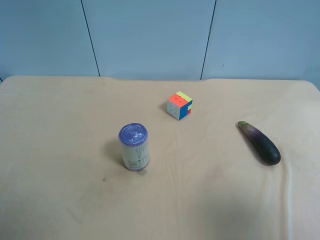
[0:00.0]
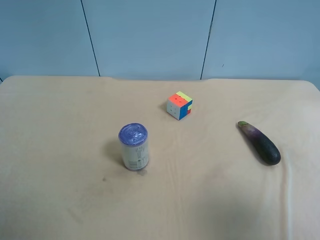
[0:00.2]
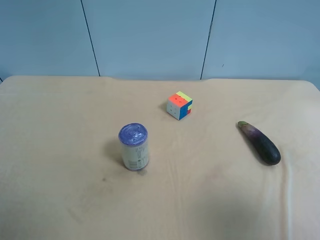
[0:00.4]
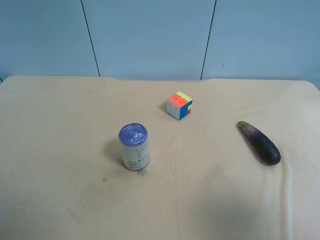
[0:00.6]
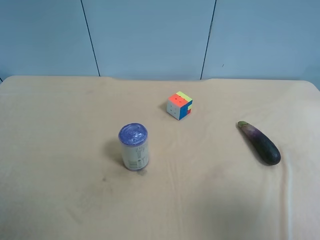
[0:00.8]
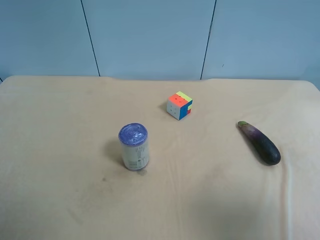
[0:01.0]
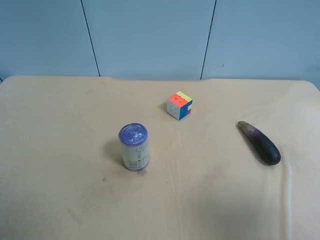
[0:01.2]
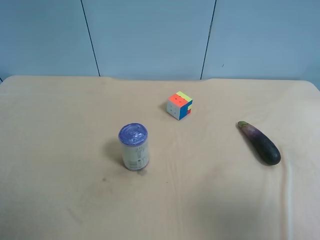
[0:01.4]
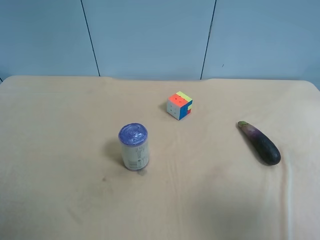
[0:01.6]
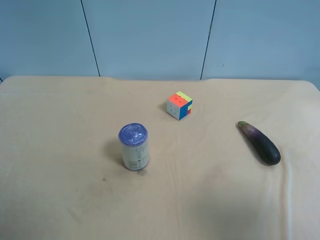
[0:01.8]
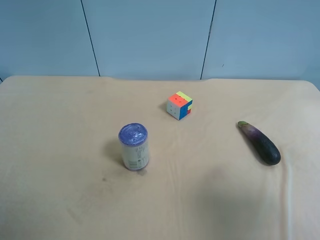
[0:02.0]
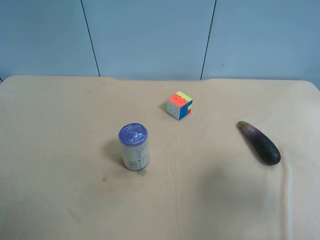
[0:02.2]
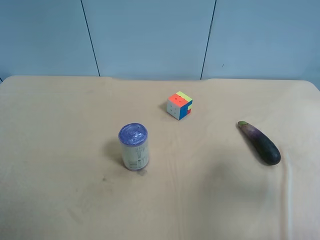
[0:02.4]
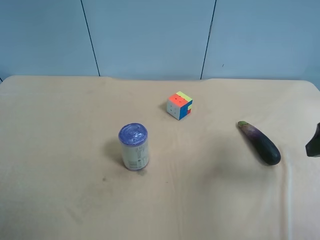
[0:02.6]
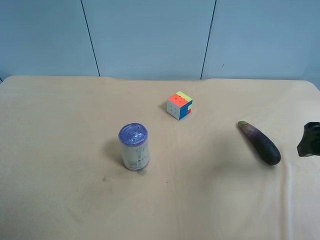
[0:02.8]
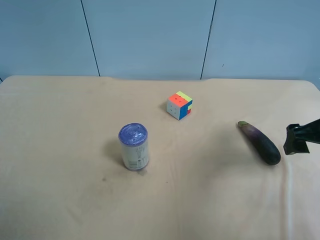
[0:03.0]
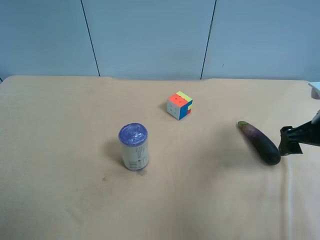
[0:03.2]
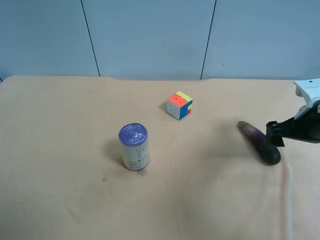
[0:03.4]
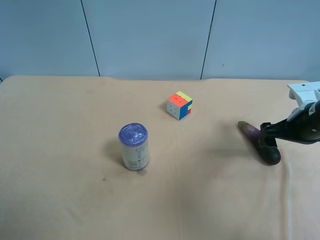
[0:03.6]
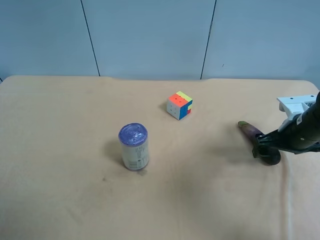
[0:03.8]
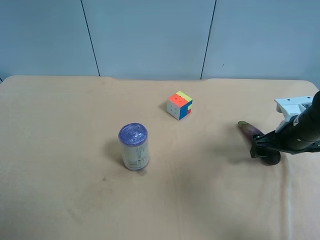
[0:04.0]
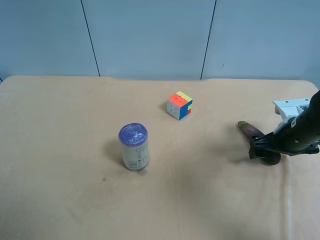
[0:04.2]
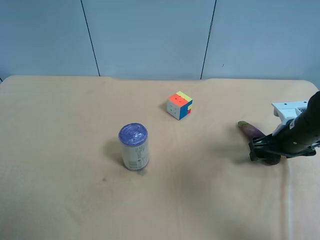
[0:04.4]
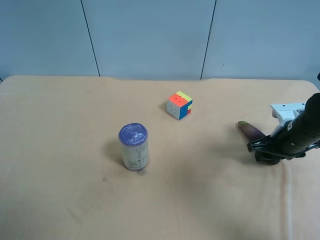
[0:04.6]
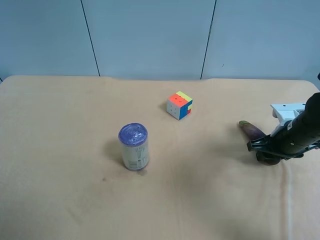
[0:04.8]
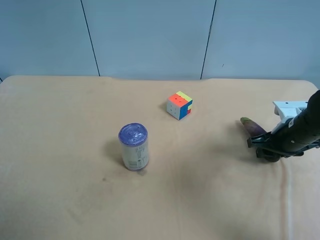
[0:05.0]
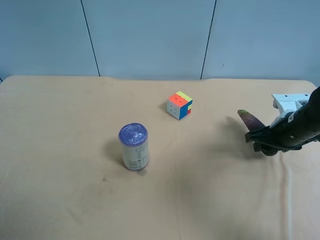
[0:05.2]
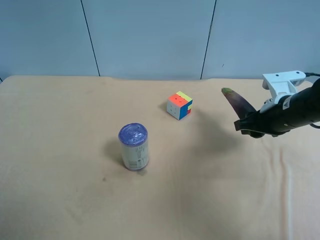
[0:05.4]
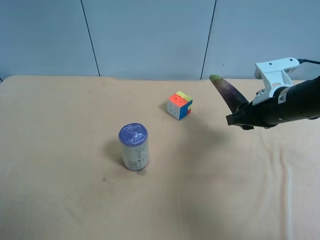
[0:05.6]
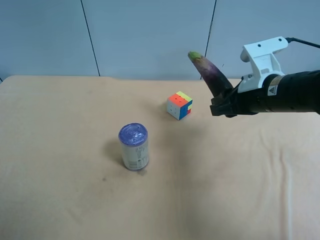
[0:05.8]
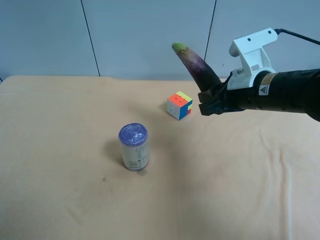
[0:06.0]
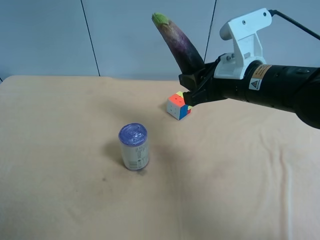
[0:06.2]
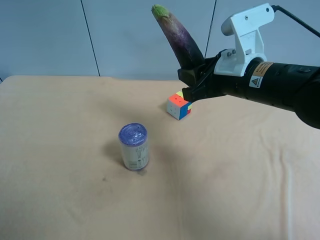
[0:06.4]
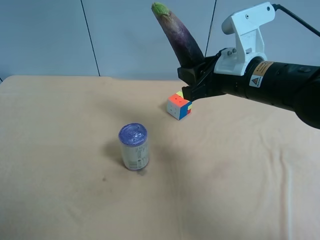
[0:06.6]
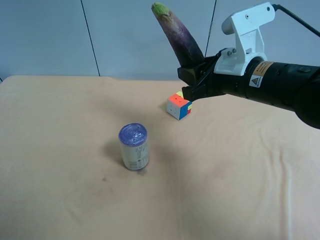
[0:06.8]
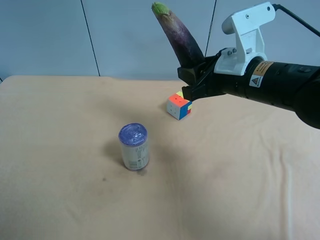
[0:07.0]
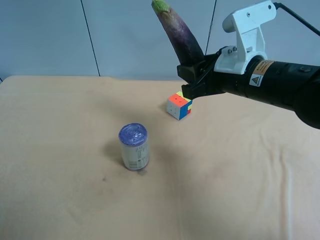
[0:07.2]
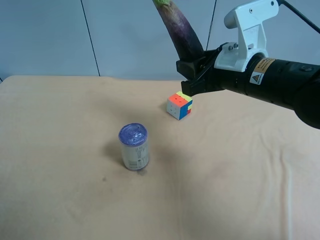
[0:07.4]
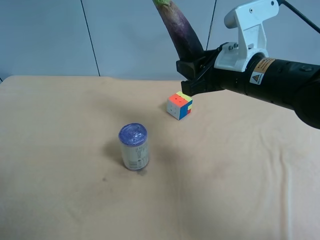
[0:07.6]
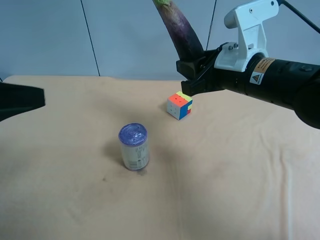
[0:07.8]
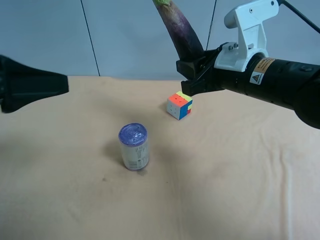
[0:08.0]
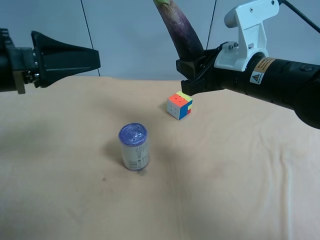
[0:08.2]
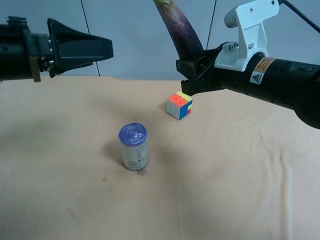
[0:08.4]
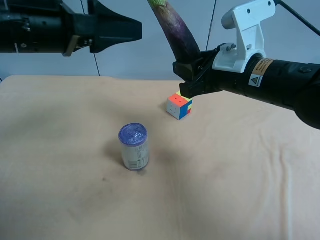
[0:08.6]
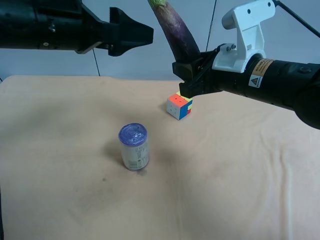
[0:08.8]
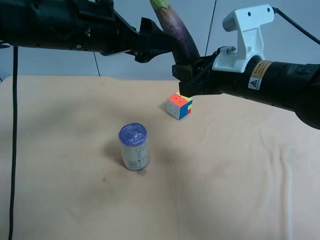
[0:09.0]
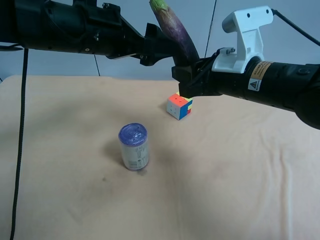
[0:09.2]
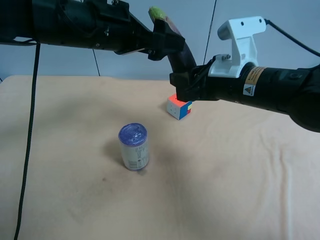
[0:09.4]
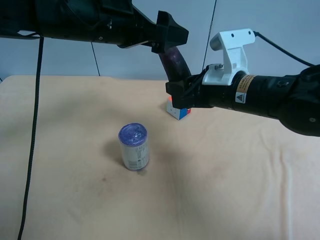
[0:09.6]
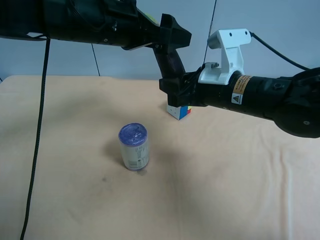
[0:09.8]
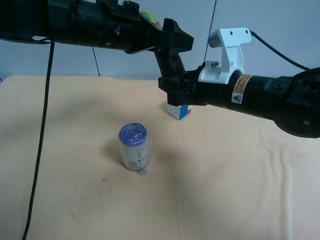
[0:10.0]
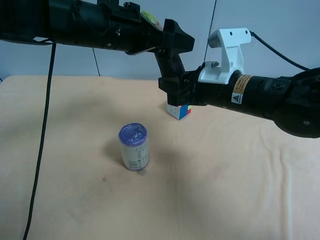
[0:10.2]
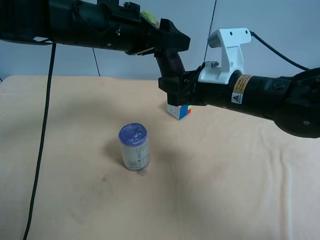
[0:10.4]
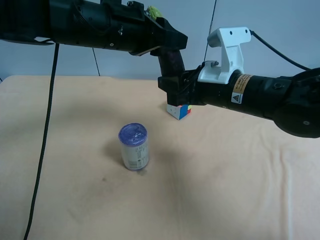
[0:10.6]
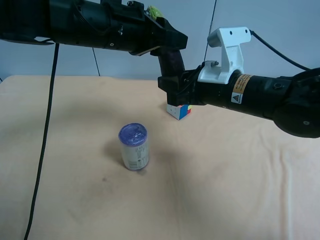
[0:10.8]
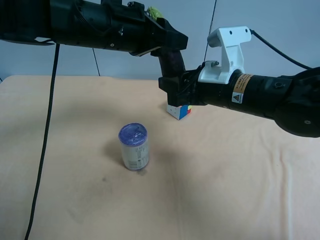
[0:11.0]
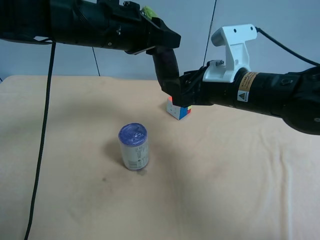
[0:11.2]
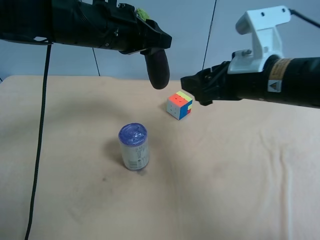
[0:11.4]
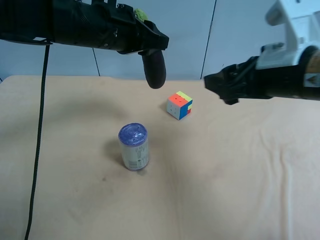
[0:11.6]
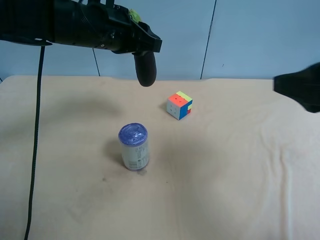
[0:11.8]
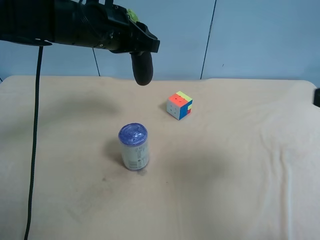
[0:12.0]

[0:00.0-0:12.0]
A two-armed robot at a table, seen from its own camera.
Task of the whole recording: use the right gripper to pick up the item and transfer it from the right gripper to the left gripper.
0:01.6 to 0:03.0: The right gripper shifts about 25 cm forward and downward.
0:03.0 to 0:04.4: The right gripper shifts about 10 cm downward and forward, and closes up.
0:04.4 to 0:06.0: The right gripper travels to the left and upward by about 20 cm, and closes up.
0:06.0 to 0:07.6: The left gripper moves forward, roughly 5 cm.
0:07.6 to 0:09.0: The left gripper is displaced forward and to the right by some 25 cm.
0:09.0 to 0:10.4: The left gripper closes its fingers.
0:10.4 to 0:12.0: The left gripper closes its fingers, while the right gripper heads backward, to the right and upward, covering roughly 25 cm, and opens its fingers.

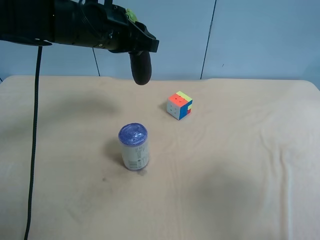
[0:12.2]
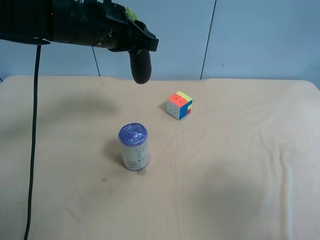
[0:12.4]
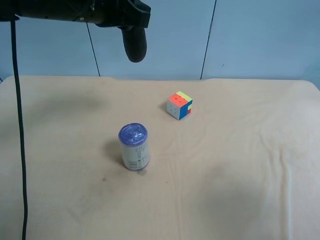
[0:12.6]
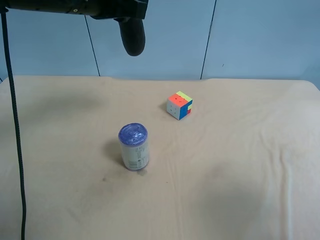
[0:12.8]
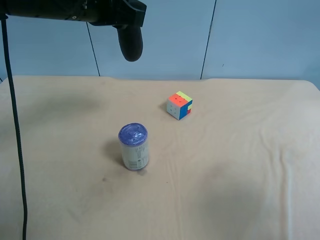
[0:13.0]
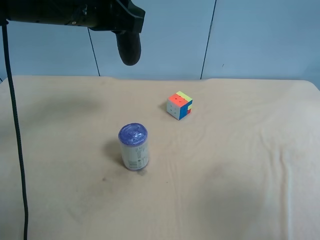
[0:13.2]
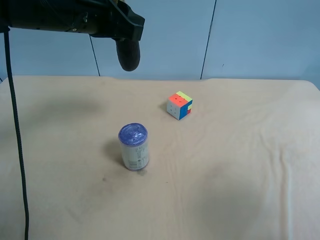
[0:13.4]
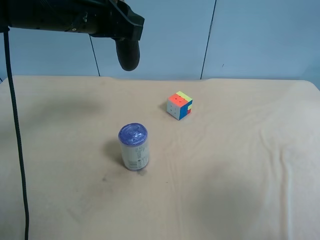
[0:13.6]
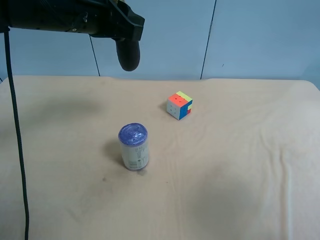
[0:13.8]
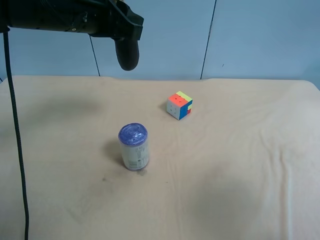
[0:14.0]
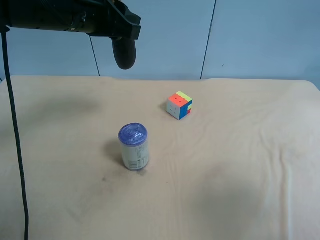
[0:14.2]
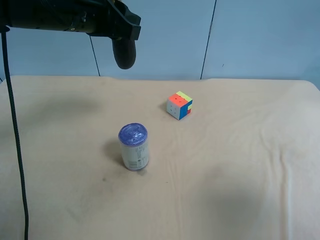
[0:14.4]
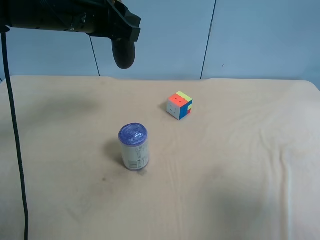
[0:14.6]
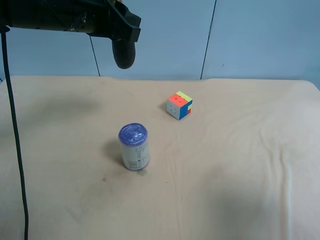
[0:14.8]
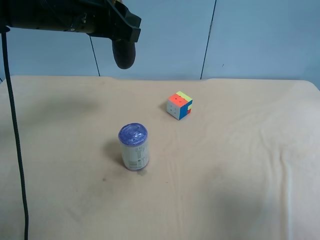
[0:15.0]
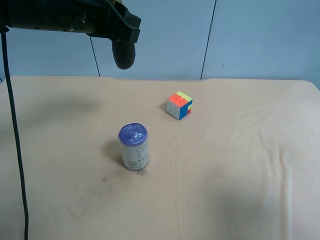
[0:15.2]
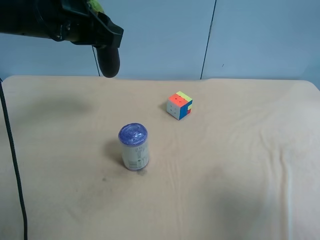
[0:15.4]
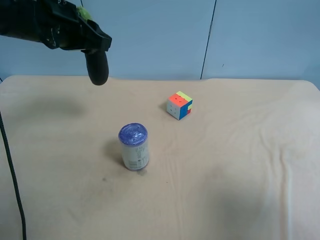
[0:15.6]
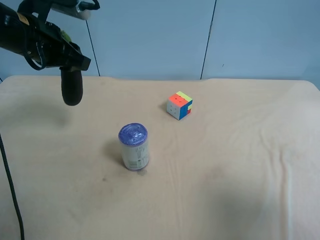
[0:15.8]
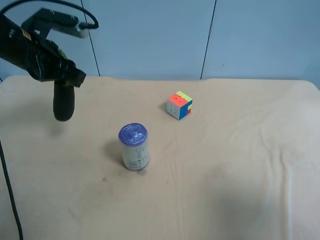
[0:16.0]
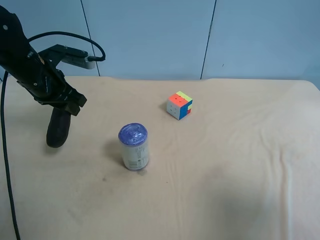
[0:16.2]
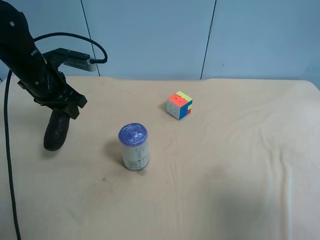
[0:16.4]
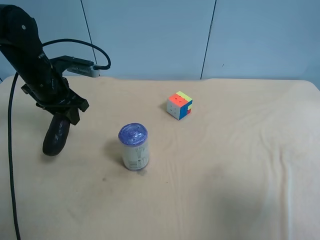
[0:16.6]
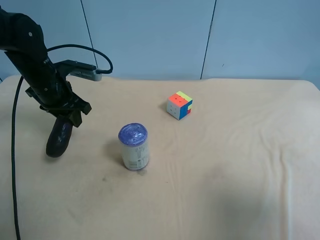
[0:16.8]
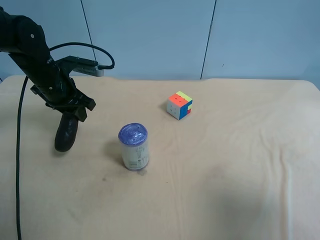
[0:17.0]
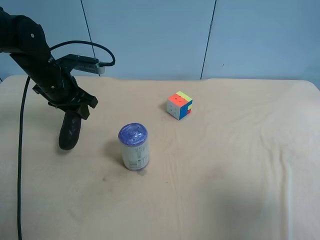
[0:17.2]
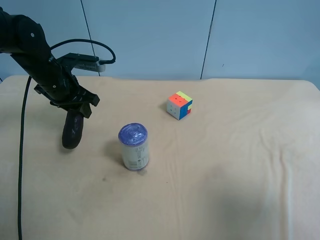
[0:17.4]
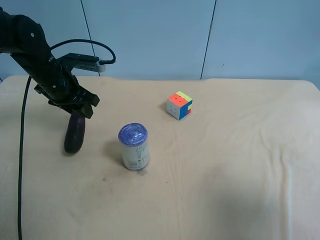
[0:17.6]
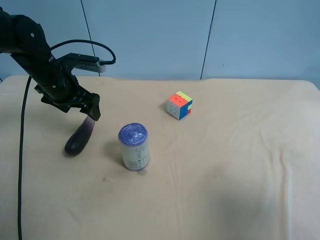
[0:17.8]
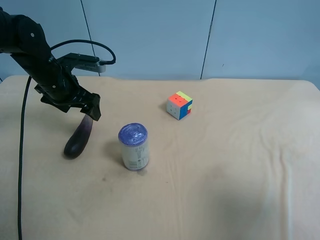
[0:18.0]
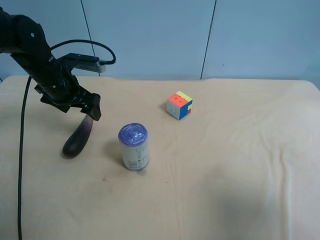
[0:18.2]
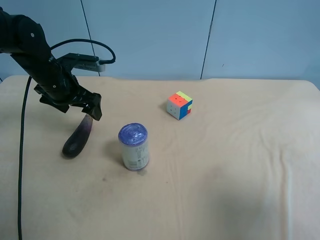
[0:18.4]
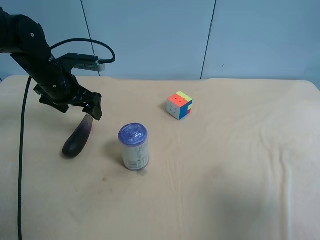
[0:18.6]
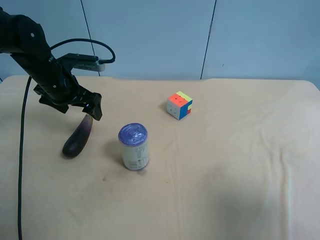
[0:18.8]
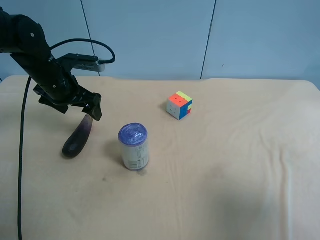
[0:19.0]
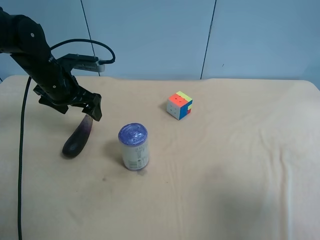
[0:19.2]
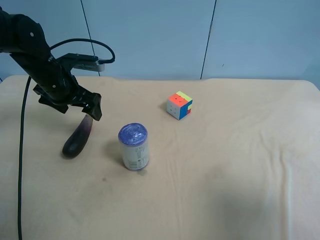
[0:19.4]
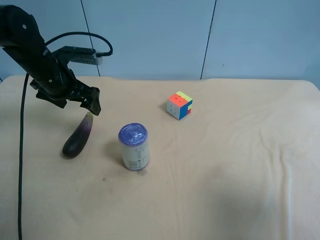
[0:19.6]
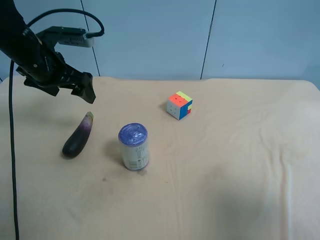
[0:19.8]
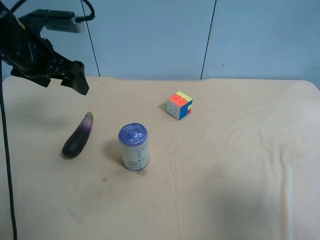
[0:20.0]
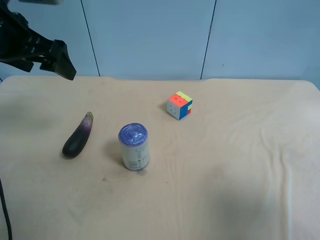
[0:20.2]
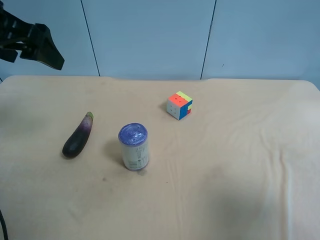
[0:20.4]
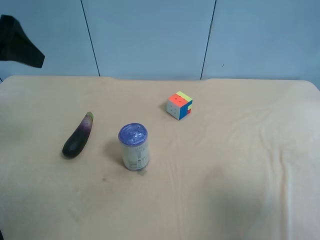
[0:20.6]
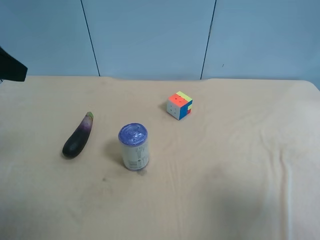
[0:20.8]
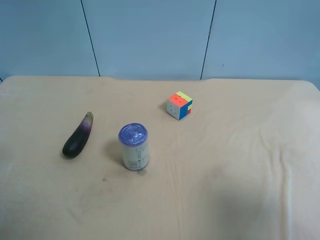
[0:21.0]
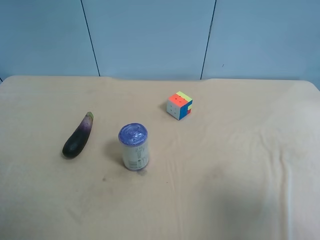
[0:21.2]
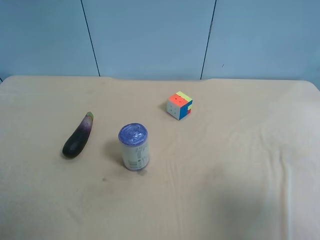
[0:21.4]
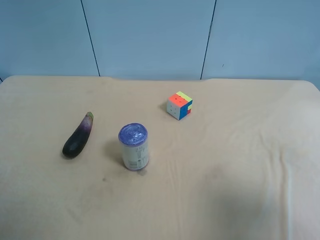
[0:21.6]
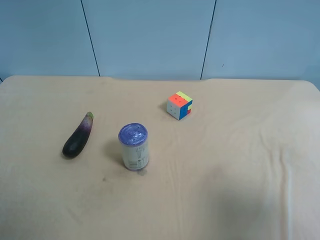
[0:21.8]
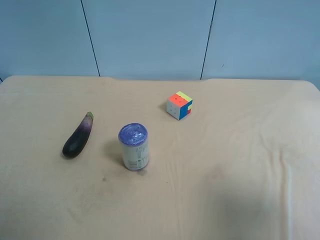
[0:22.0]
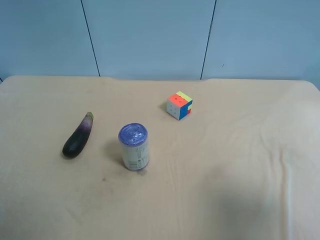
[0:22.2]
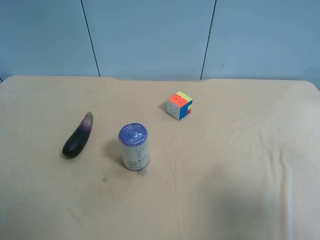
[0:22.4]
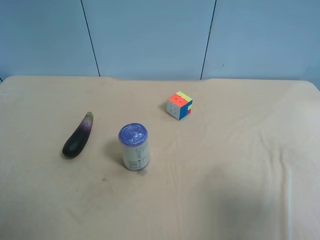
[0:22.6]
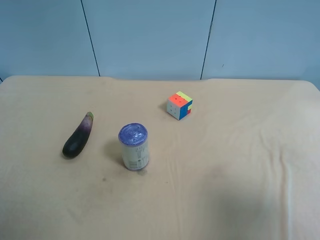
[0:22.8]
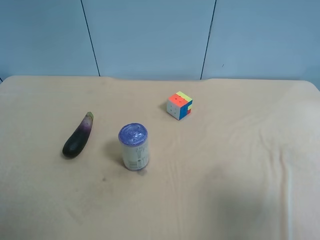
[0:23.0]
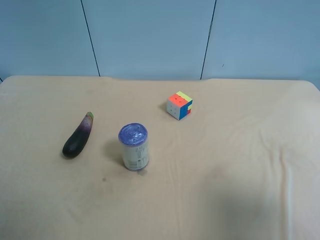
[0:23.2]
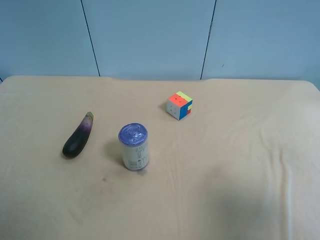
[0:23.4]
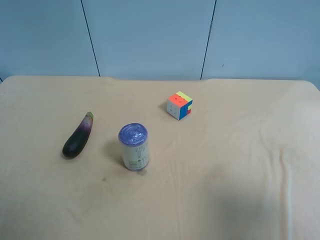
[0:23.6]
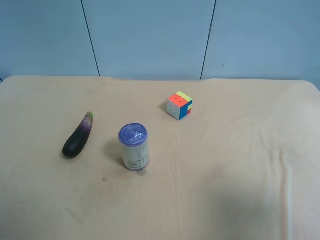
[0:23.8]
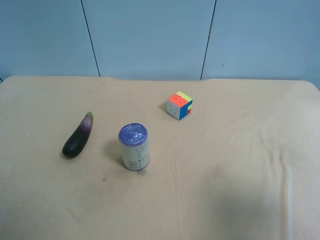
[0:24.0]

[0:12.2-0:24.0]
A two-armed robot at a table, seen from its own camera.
Task of the whole recording: use the right gripper to pick up the item and transfer it from the right gripper to the left gripper.
0:12.2 to 0:13.6: The left gripper ends up roughly 5 cm from where it was.
0:15.2 to 0:16.6: The left gripper travels downward and to the left by roughly 15 cm.
0:16.6 to 0:18.2: The left gripper opens up.
0:18.2 to 0:19.6: The grippers stay close to where they were, moving slightly.
0:19.6 to 0:21.0: The left gripper heads backward and upward, covering approximately 30 cm.
0:22.6 to 0:24.0: Neither gripper changes place.
